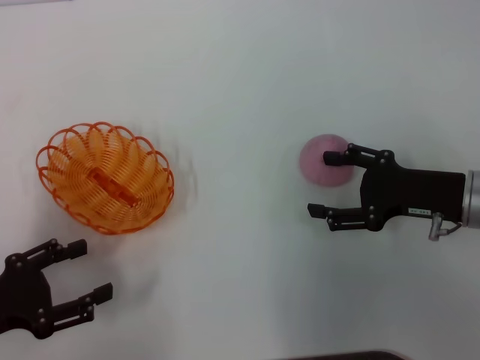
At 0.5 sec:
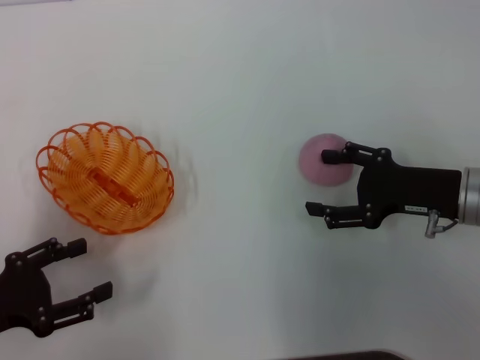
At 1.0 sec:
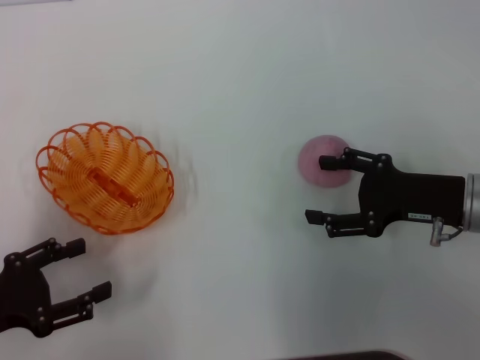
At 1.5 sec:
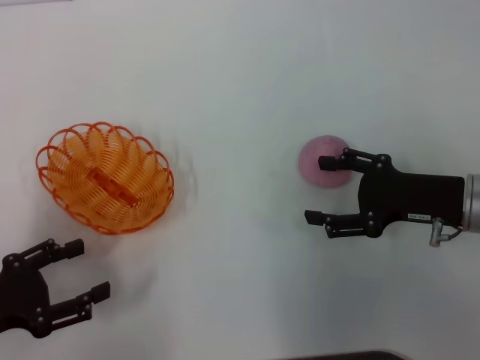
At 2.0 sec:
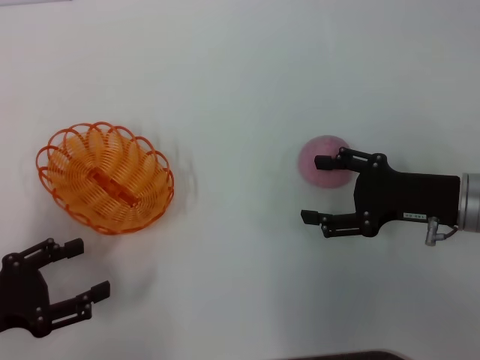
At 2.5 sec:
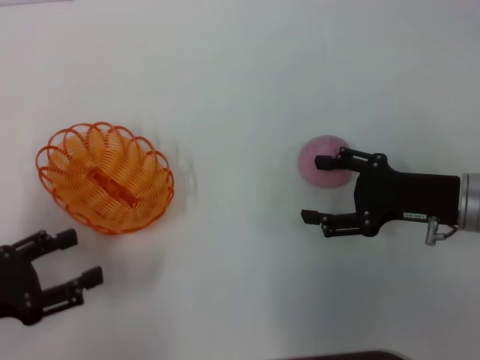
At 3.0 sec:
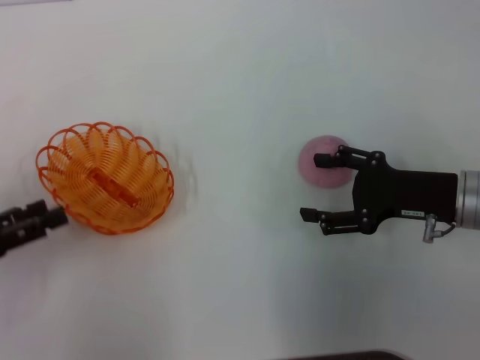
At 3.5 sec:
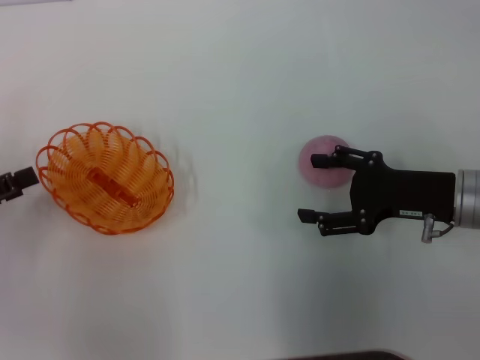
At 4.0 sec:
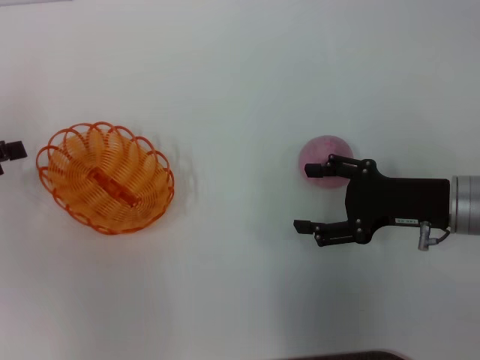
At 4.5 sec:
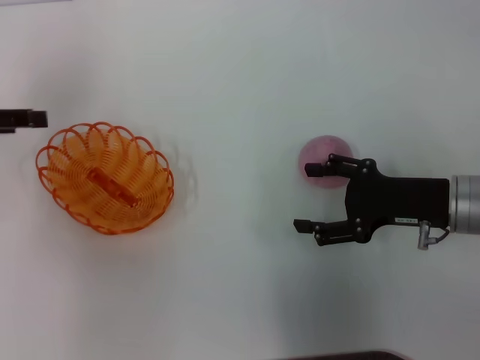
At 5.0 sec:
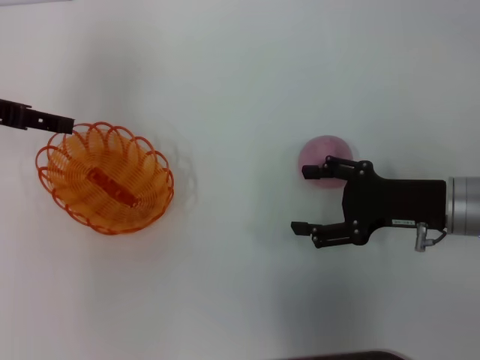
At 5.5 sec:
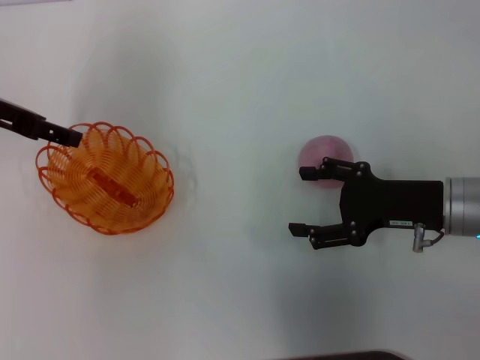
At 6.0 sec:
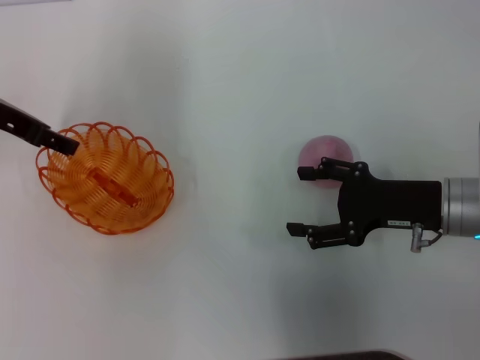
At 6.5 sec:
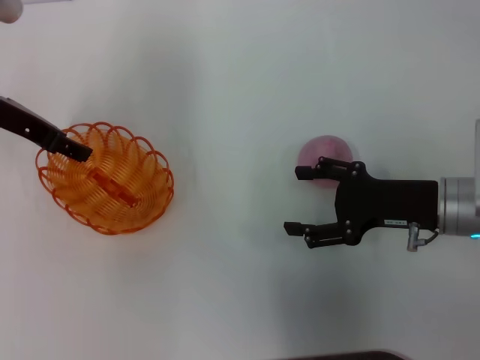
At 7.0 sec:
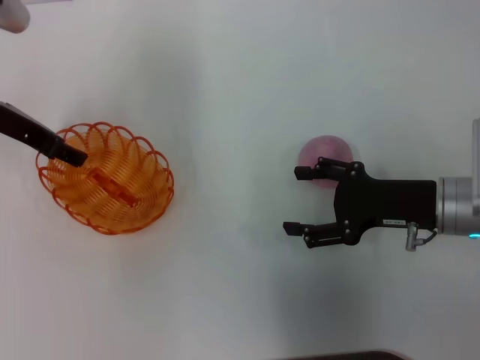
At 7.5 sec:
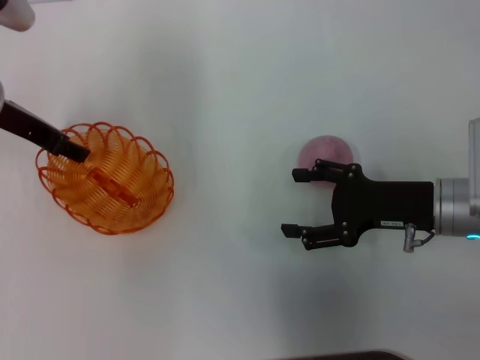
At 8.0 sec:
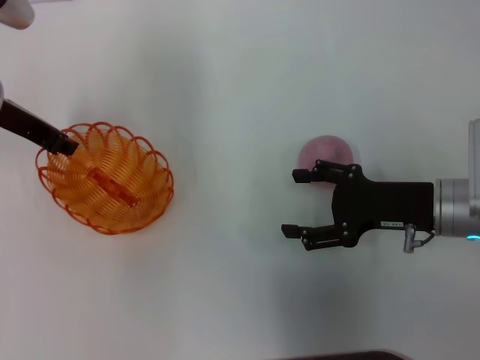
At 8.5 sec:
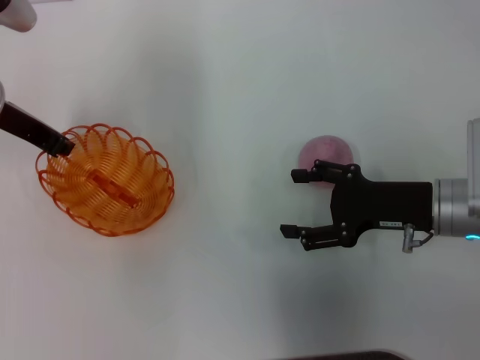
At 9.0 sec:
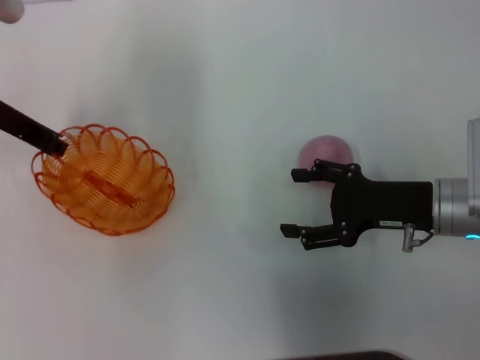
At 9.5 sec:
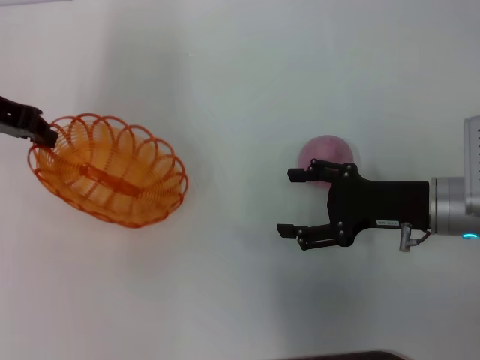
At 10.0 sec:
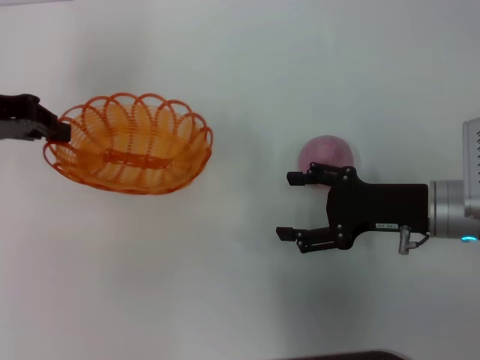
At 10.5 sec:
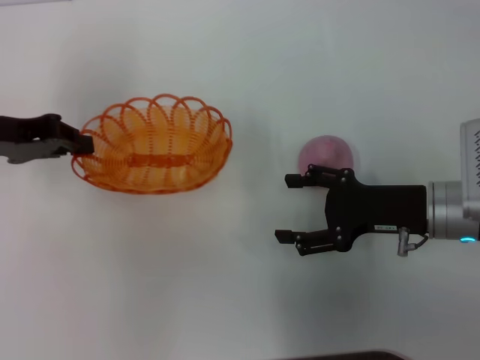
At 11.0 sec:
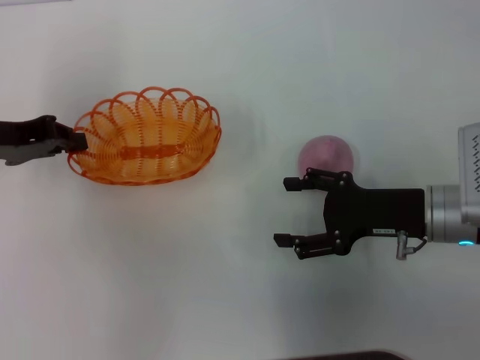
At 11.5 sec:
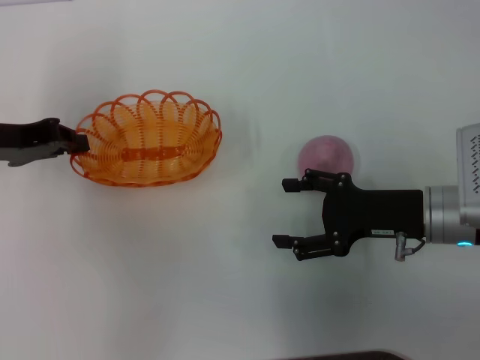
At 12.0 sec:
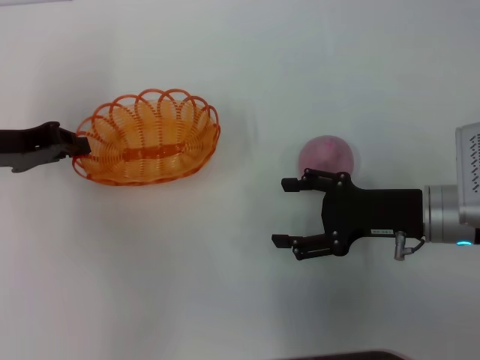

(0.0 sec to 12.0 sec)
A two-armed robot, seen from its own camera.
Step, 0.0 sec - 9.5 sec: Pick up the basket with the left gripper.
0.0 sec - 2.0 sec: Both grippers stay about where they are.
2.0 sec - 4.0 sec: The left gripper shifts about 15 cm forward, upward and to the left.
4.0 sec - 6.0 sec: The left gripper travels to the right, forward and upward by about 15 cm.
6.0 sec - 8.0 sec: The grippers stay close to where they were, moving slightly.
8.0 sec - 10.0 sec: The left gripper is displaced to the left by some 5 cm, and closes up.
10.0 sec - 12.0 sec: The left gripper goes approximately 5 cm downward.

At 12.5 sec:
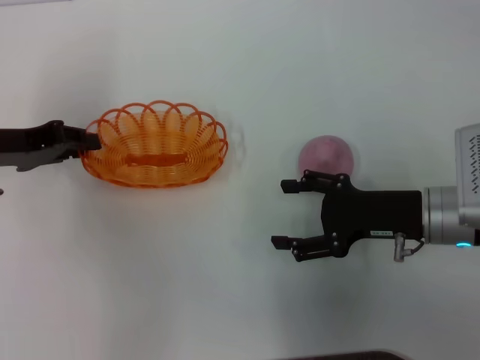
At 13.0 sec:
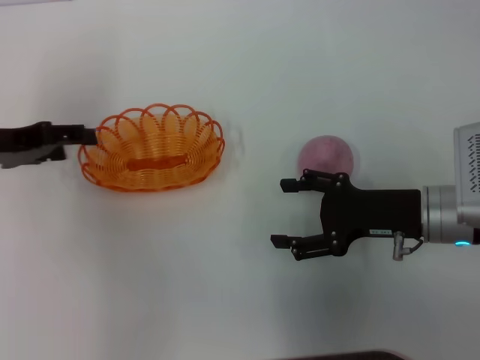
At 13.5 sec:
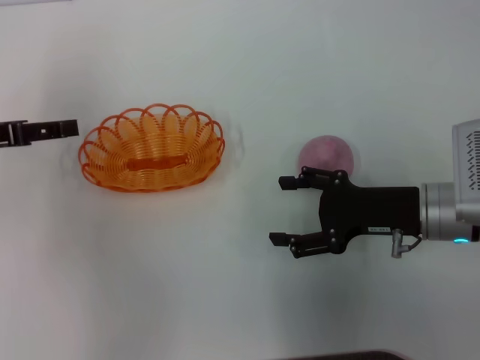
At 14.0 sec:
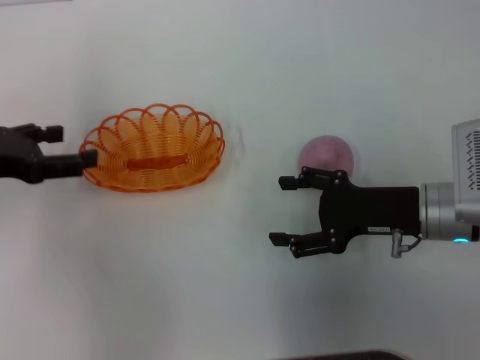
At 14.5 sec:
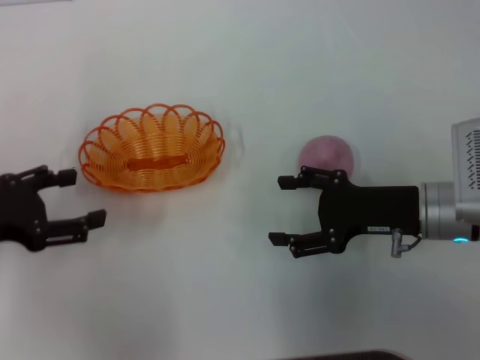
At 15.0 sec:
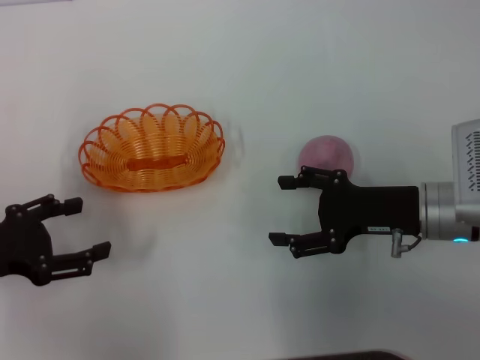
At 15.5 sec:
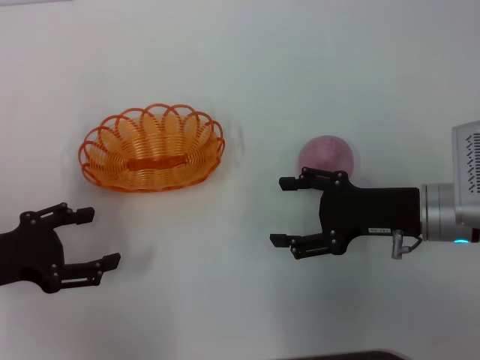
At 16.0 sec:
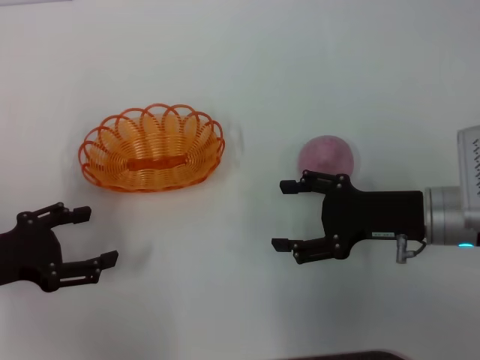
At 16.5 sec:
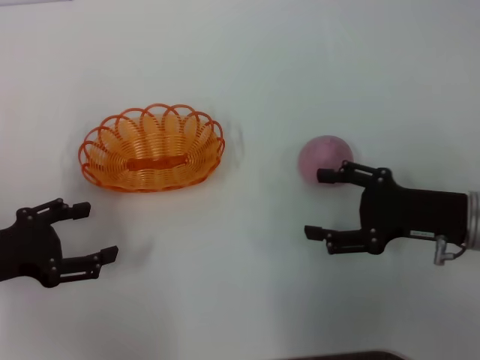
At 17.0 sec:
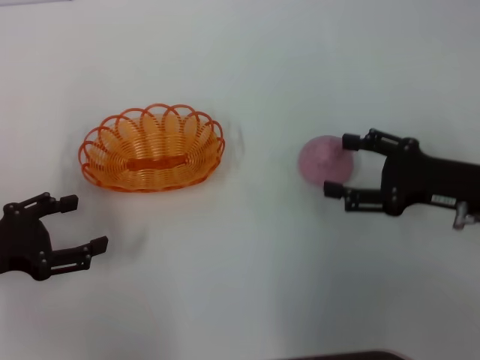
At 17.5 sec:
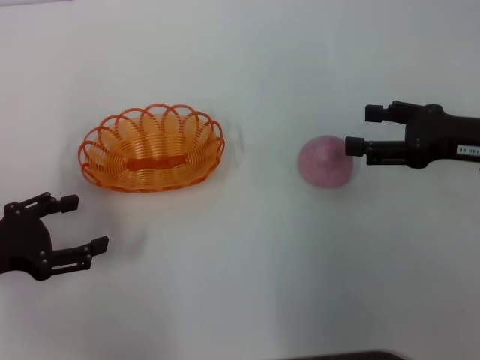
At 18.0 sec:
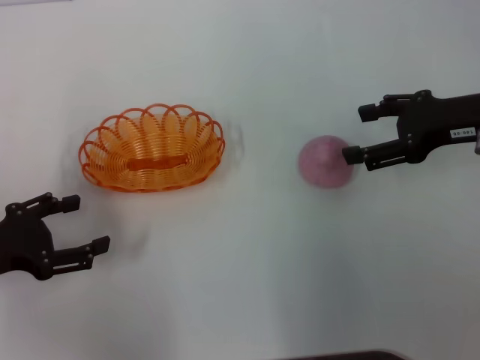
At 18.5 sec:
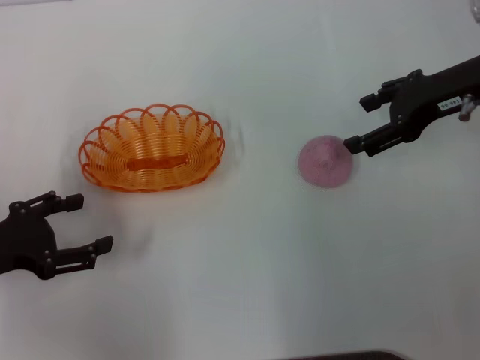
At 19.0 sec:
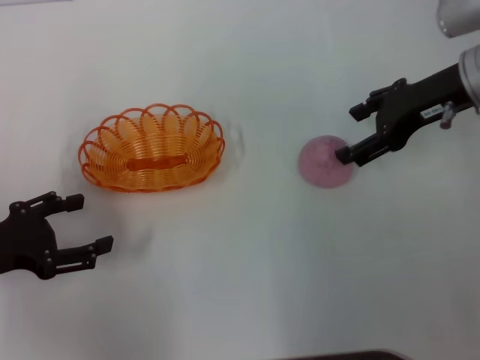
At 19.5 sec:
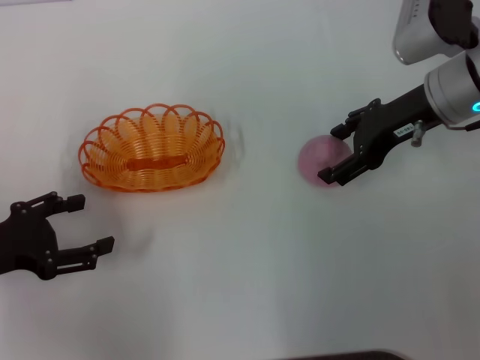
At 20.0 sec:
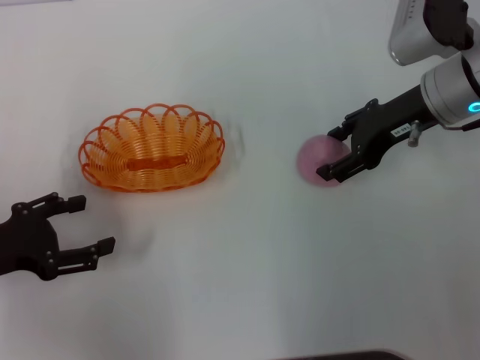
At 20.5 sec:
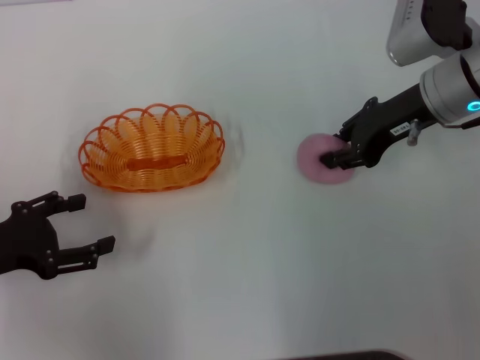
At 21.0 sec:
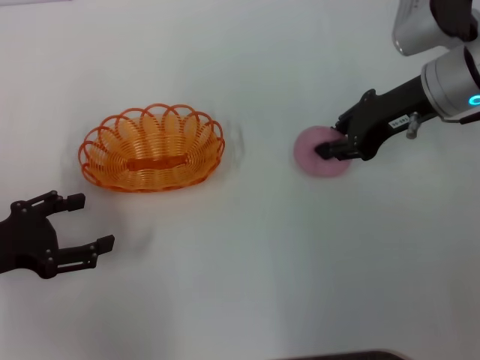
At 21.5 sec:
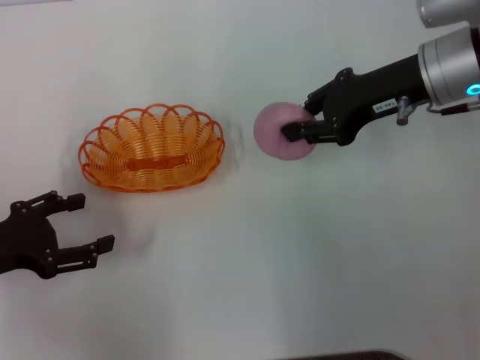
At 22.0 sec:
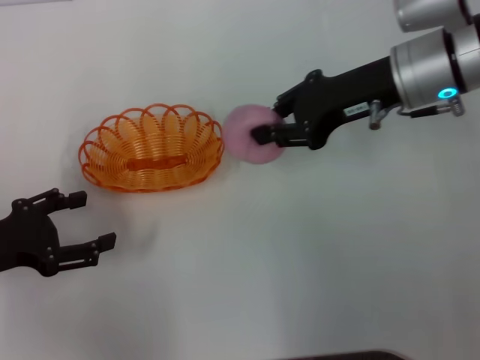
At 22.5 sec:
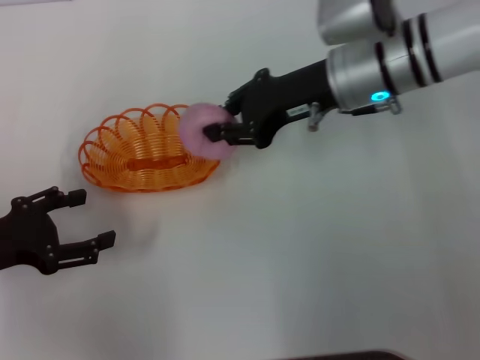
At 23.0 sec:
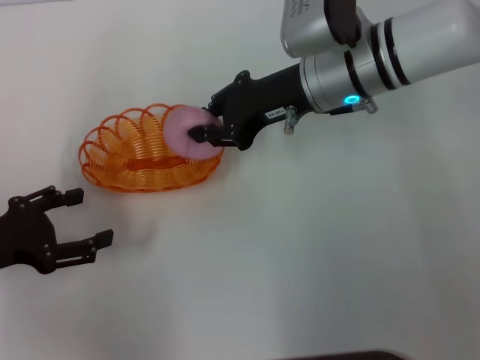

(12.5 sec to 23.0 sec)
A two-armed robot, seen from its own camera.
Step, 12.5 sec - 15.0 sec: Place the basket in the center of view with the left gripper.
Step, 15.5 sec - 21.5 sec: Pick up the peach with the right gripper.
12.5 sec - 14.5 sec: The left gripper is displaced backward by approximately 10 cm, and opens up.
14.5 sec - 16.5 sec: The grippers move only a little.
16.5 sec - 19.0 sec: The right gripper shifts roughly 15 cm forward and upward.
19.0 sec - 21.0 sec: The right gripper closes up.
21.0 sec - 23.0 sec: The right gripper travels to the left by roughly 10 cm.

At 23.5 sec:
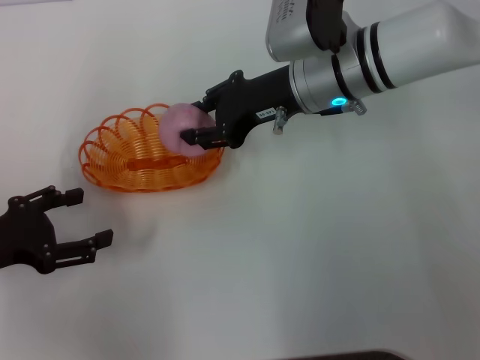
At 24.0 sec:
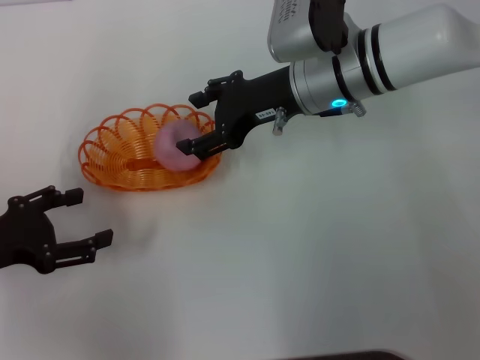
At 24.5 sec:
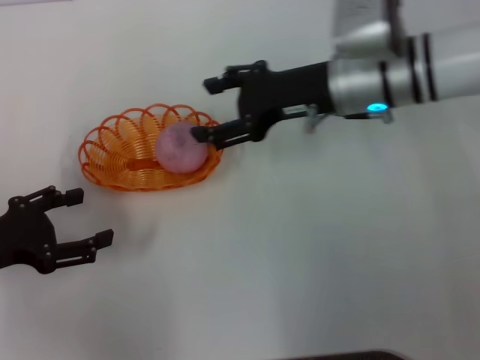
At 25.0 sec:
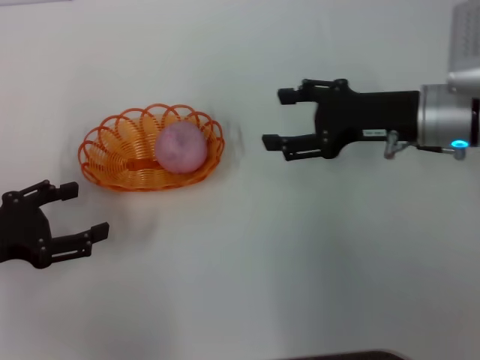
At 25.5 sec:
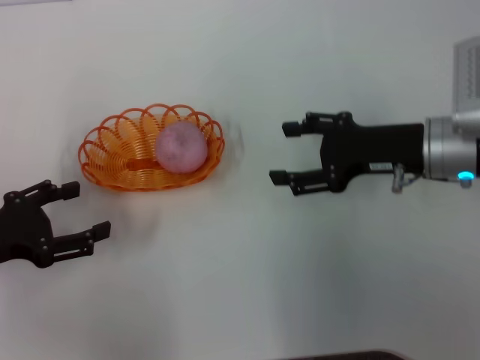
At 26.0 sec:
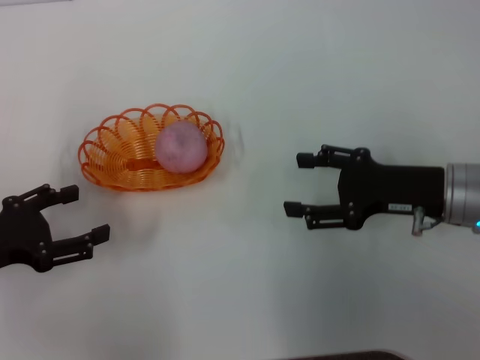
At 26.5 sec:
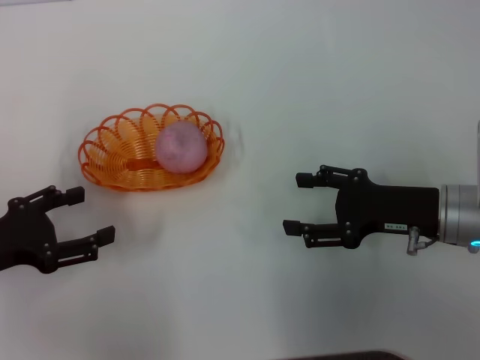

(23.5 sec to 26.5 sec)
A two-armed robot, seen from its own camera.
23.5 sec - 25.0 sec: The right gripper goes about 10 cm to the right and backward, and opens its fingers.
25.0 sec - 26.5 sec: The right gripper shifts about 10 cm backward and downward.
